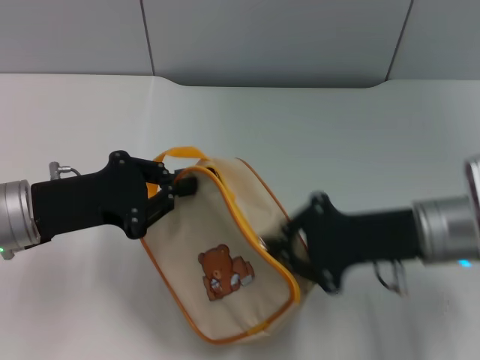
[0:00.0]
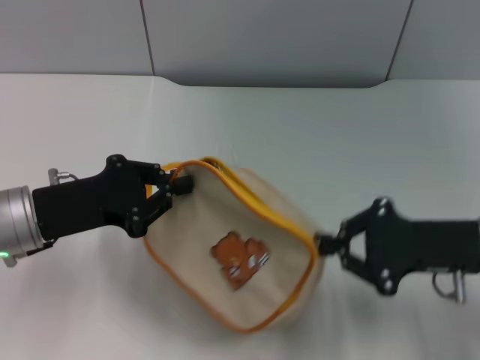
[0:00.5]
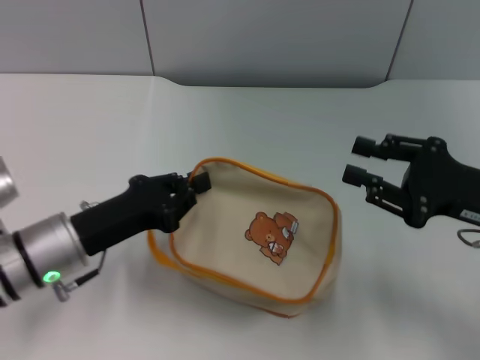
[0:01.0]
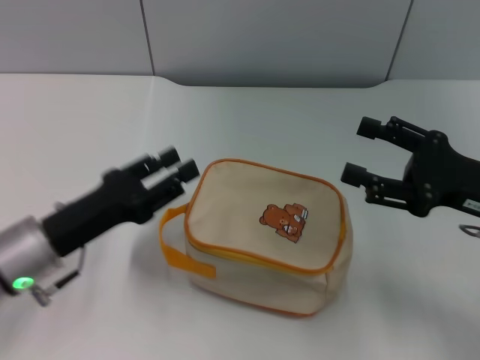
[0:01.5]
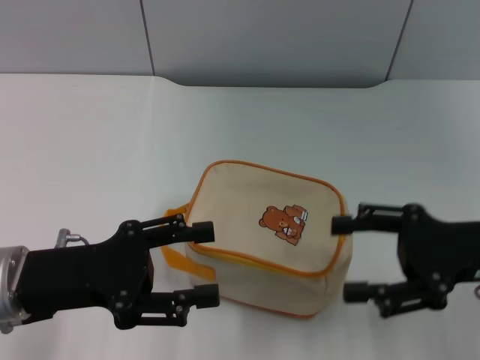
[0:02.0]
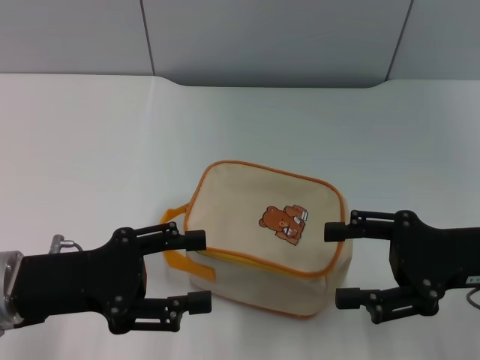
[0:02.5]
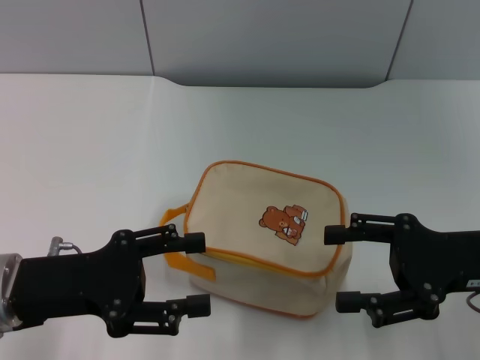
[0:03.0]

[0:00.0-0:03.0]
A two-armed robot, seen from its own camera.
0:00.0 to 0:01.5: The right gripper is displaced to the right by about 10 cm, and opens up. Meanwhile the left gripper ends up roughly 5 cm from where it was.
0:01.5 to 0:03.0: The left gripper opens.

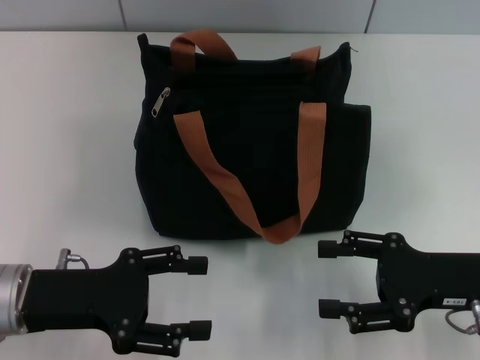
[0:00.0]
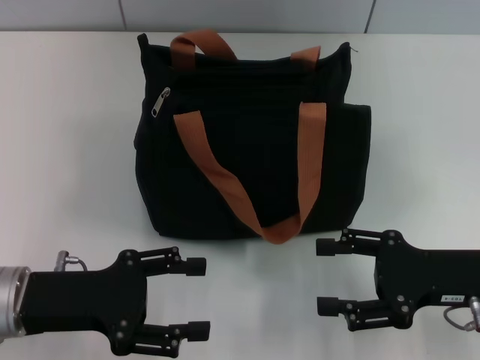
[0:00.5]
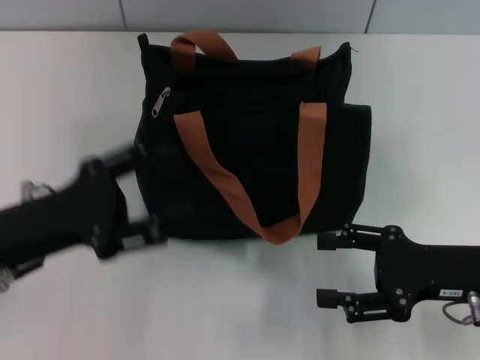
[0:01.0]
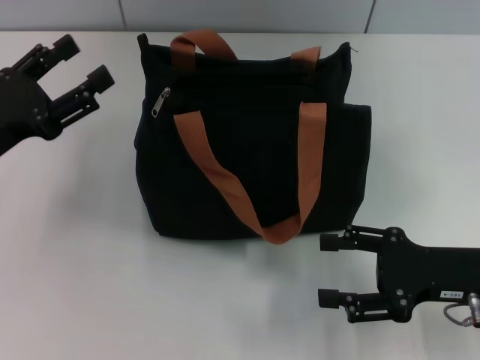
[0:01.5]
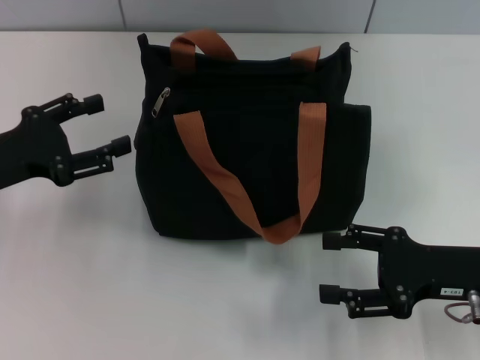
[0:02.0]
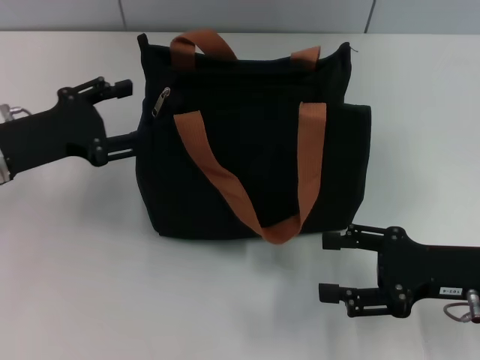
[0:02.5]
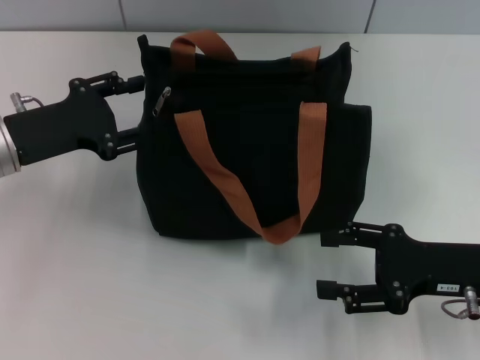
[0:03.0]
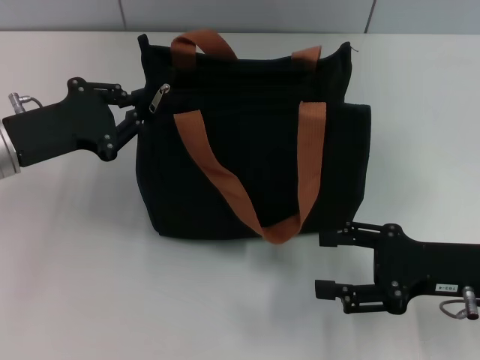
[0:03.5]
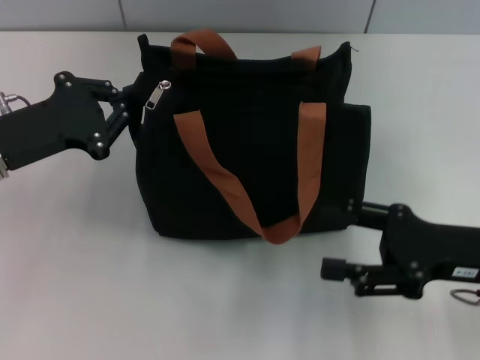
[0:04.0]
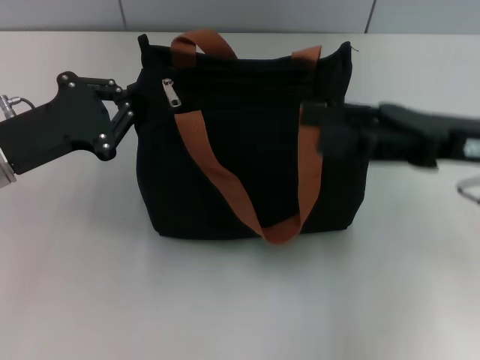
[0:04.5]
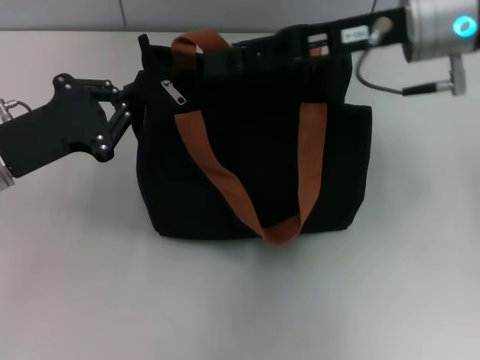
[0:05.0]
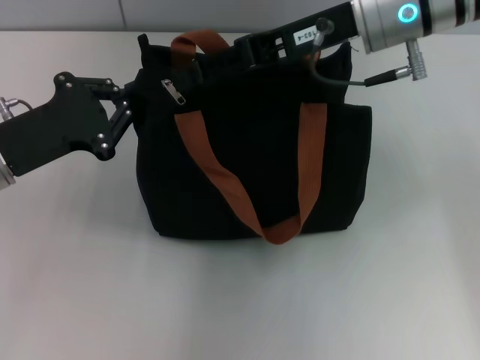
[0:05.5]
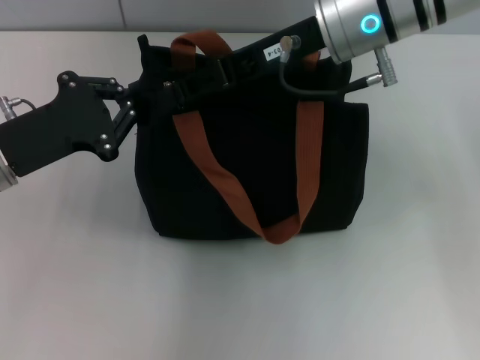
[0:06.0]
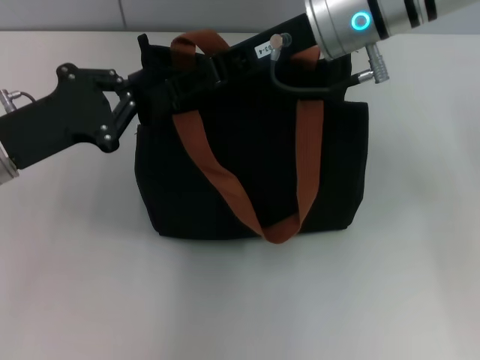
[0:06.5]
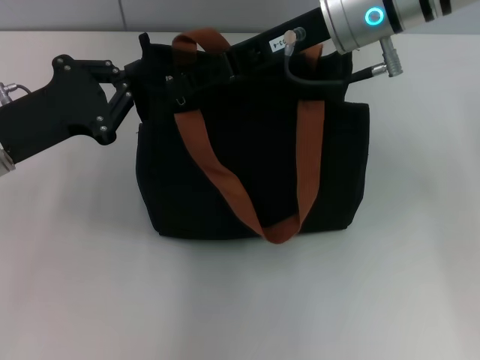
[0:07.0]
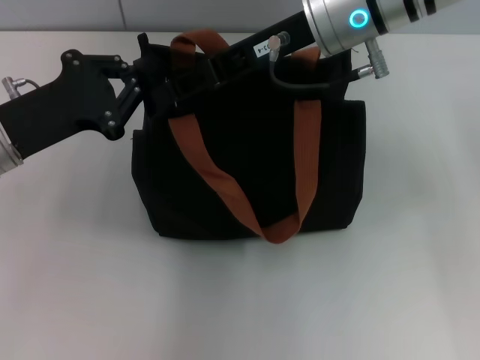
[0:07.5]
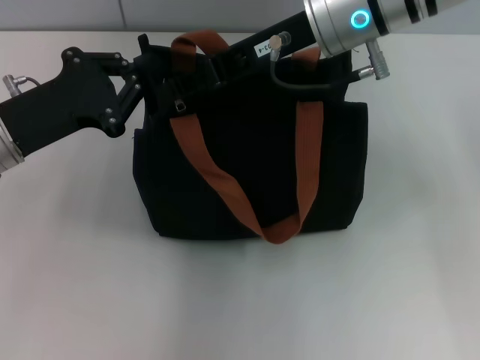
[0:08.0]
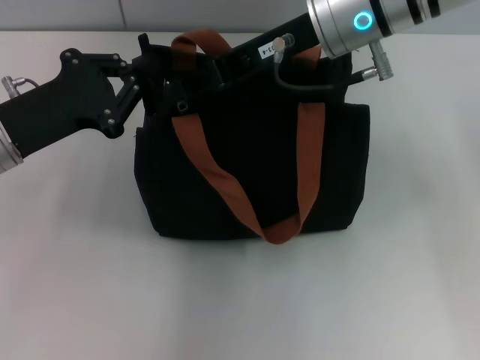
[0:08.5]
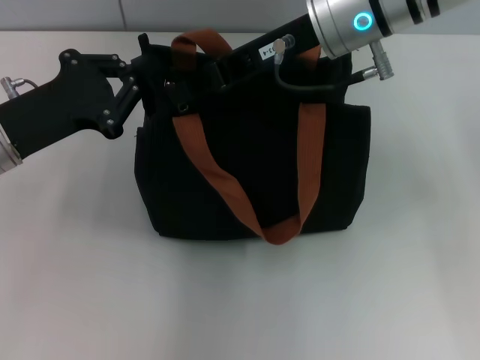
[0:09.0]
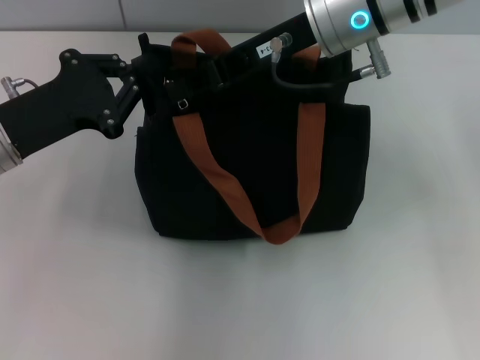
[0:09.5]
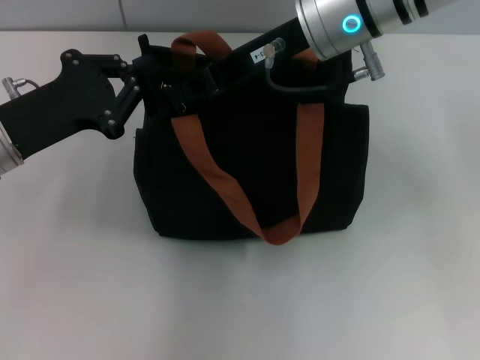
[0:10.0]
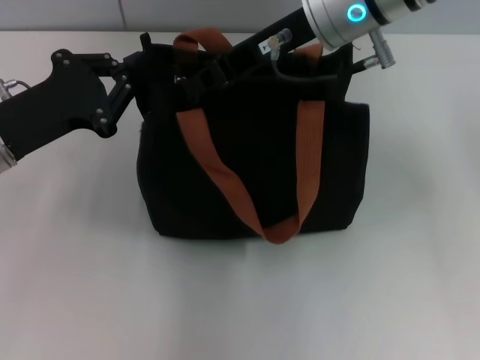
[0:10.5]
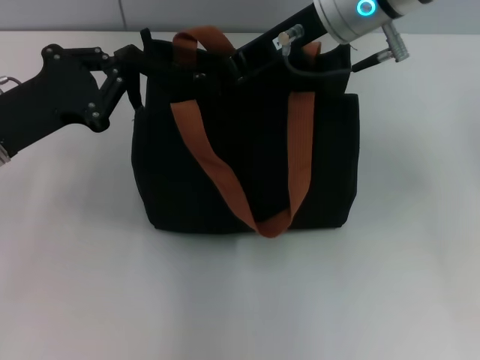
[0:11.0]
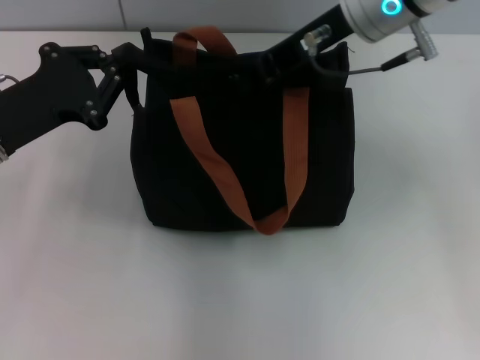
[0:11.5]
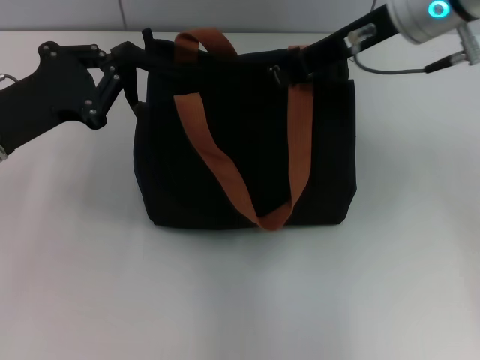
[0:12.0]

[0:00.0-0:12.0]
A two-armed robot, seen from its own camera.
Step, 0:00.0 to 0:12.0: Pull up the zipper with your right hand.
0:00.0 to 0:02.0: The left gripper is displaced forward and to the left by about 10 cm.
0:02.0 to 0:04.0: The left gripper closes up.
0:04.0 to 0:06.0: The right gripper goes about 25 cm to the left, forward and upward.
0:06.0 to 0:08.0: The grippers stay close to where they were, moving slightly.
0:08.0 to 0:10.0: The right gripper closes its fingers.
0:10.0 to 0:12.0: The right gripper heads to the right, covering about 5 cm.

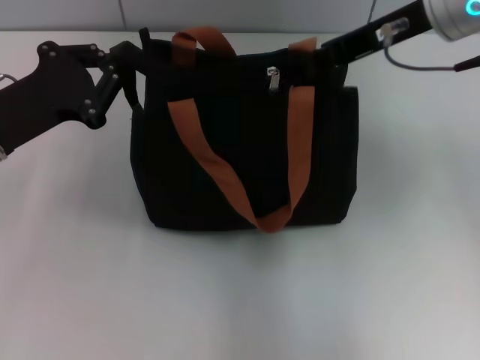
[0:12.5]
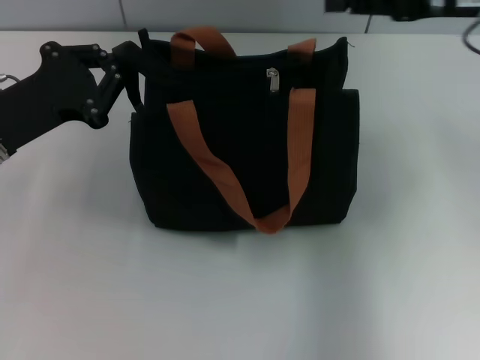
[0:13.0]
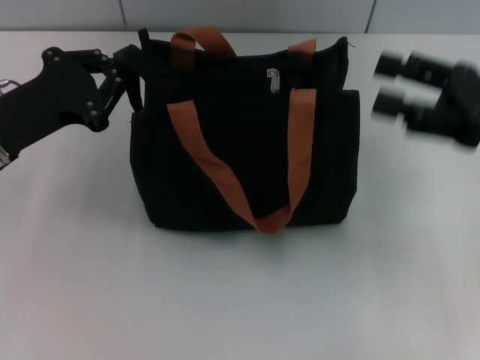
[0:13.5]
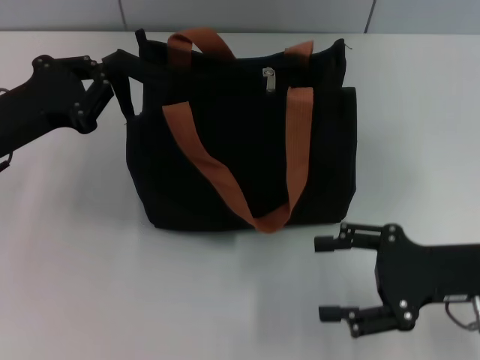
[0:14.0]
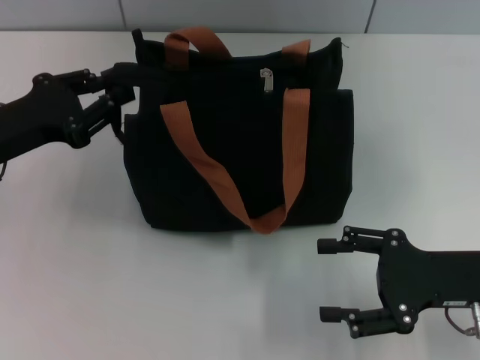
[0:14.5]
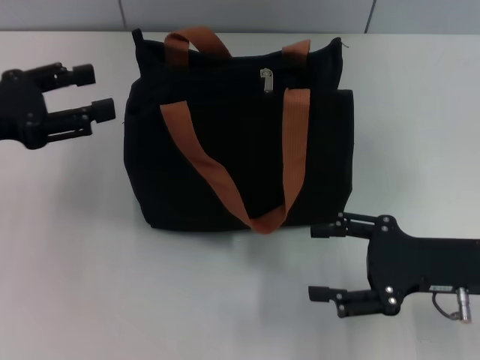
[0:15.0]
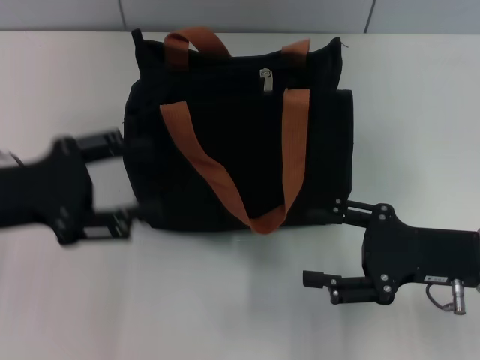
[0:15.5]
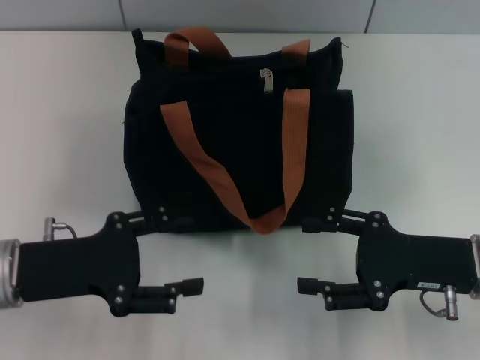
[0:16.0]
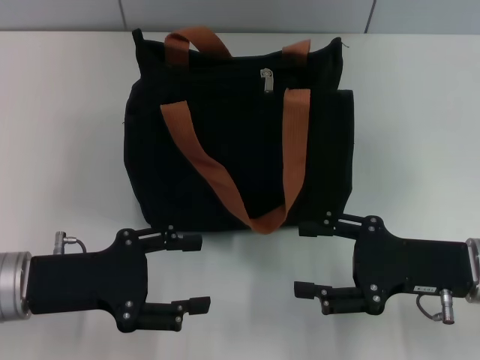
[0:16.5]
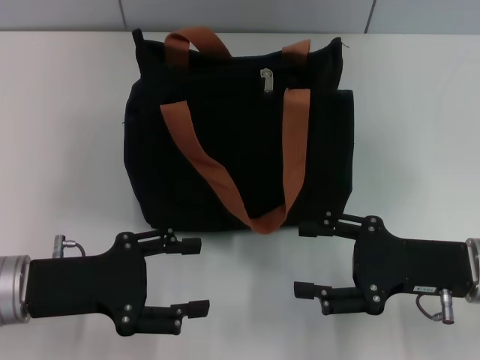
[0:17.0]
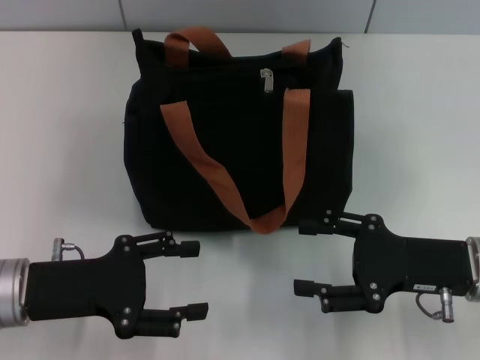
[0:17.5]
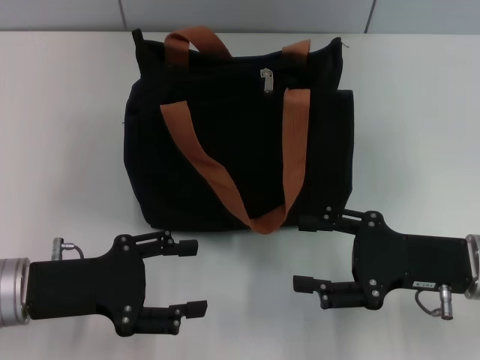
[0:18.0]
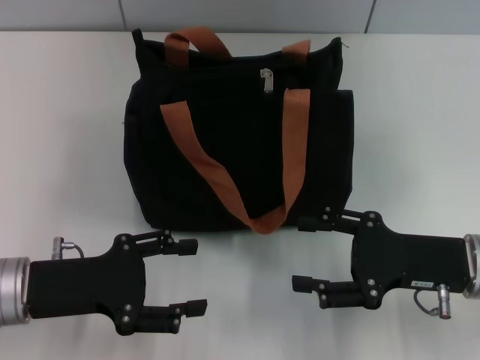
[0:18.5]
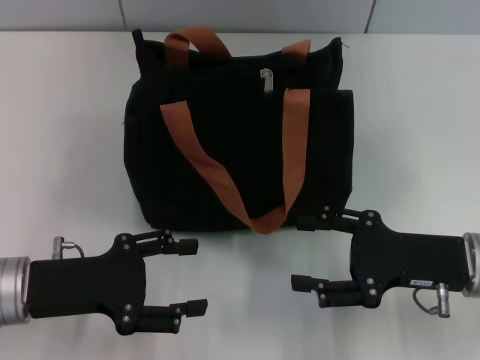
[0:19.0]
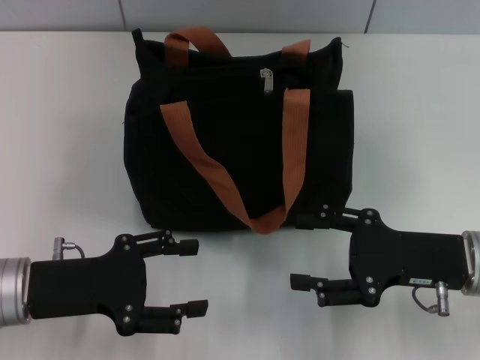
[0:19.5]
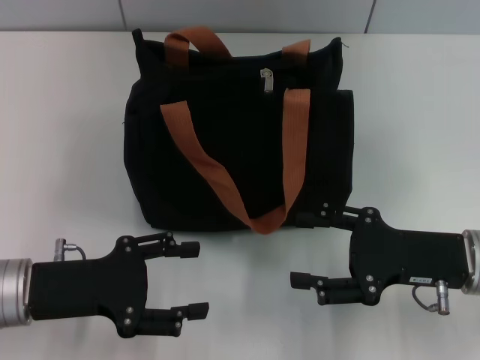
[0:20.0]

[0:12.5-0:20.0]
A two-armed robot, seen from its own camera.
0:12.5 to 0:14.5: The right gripper is displaced downward, backward and to the right by roughly 25 cm, and opens its fingers.
0:14.5 to 0:16.5: The left gripper travels backward by roughly 5 cm, and opens.
0:16.5 to 0:20.0: Both grippers stay about where they are.
